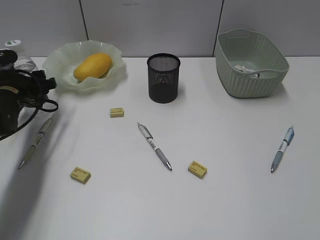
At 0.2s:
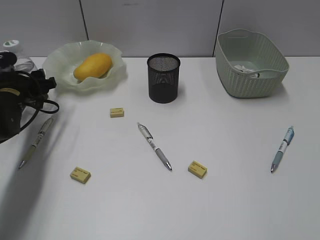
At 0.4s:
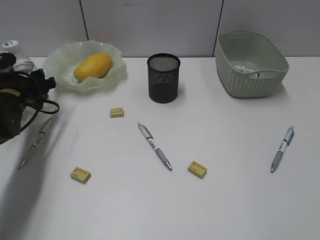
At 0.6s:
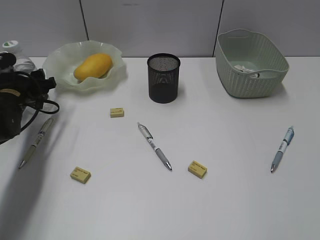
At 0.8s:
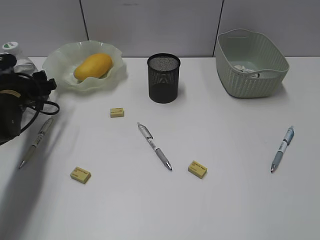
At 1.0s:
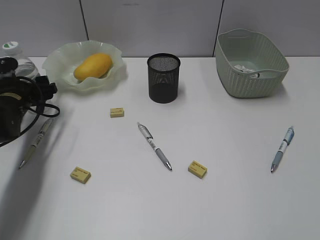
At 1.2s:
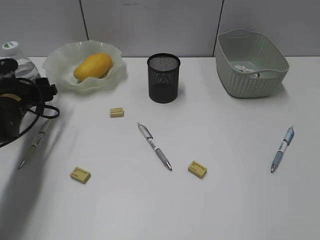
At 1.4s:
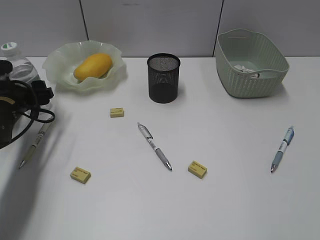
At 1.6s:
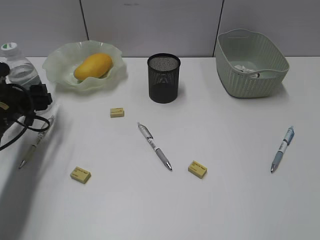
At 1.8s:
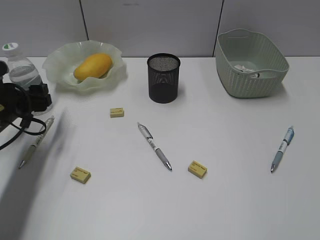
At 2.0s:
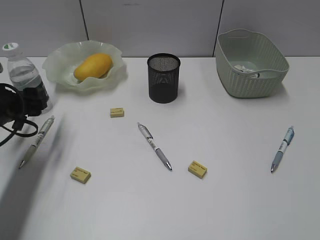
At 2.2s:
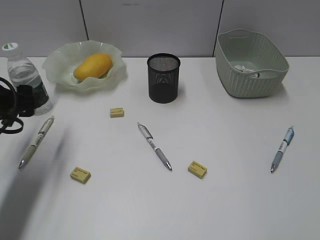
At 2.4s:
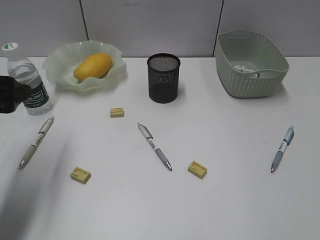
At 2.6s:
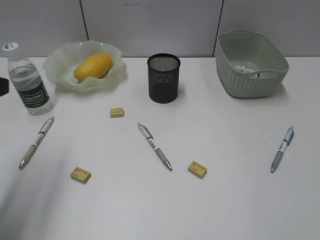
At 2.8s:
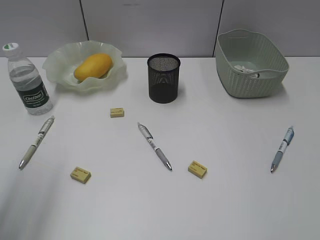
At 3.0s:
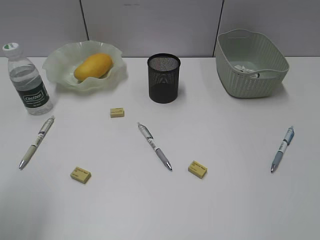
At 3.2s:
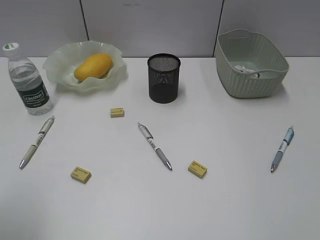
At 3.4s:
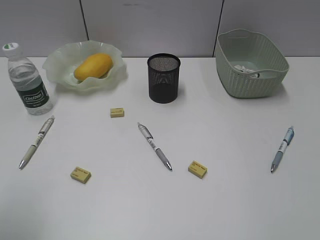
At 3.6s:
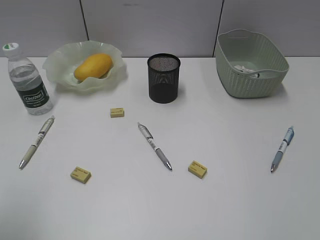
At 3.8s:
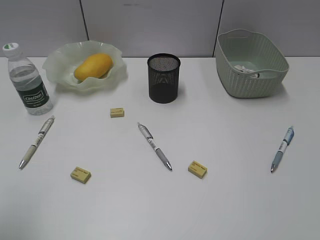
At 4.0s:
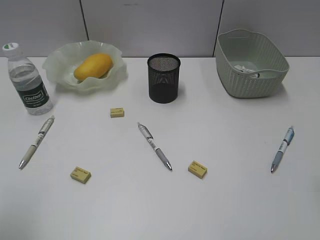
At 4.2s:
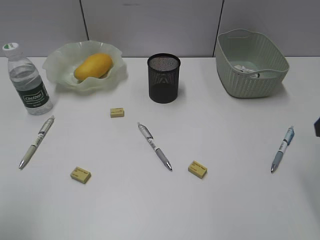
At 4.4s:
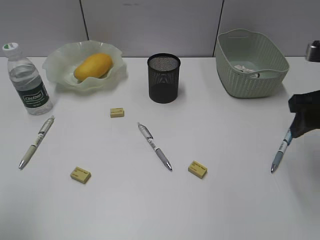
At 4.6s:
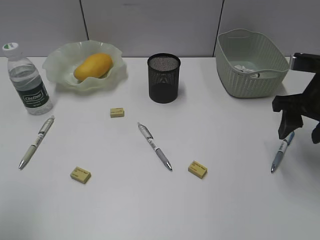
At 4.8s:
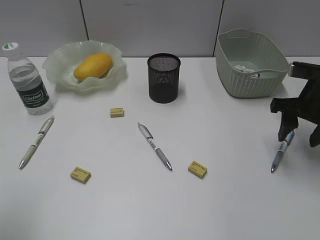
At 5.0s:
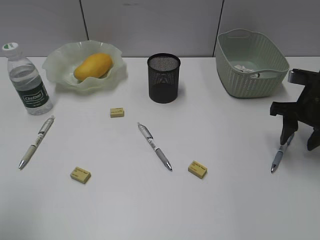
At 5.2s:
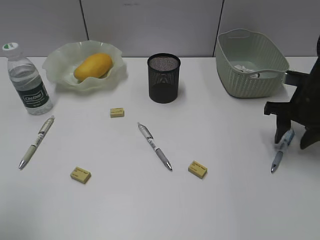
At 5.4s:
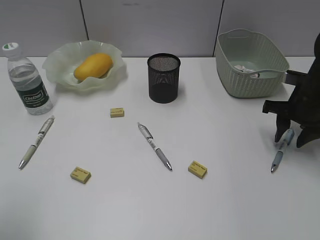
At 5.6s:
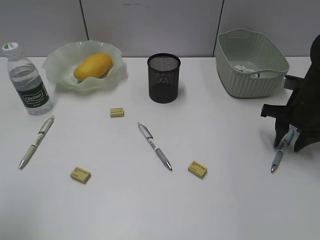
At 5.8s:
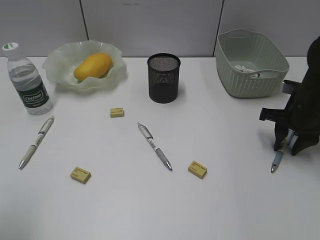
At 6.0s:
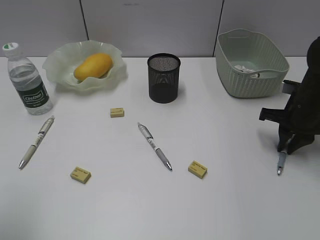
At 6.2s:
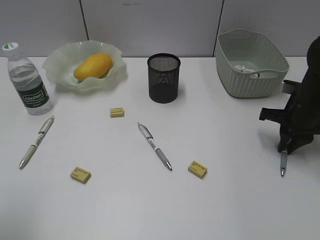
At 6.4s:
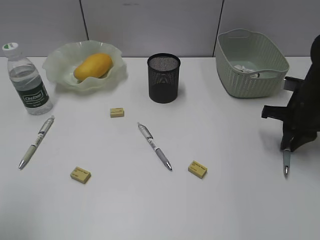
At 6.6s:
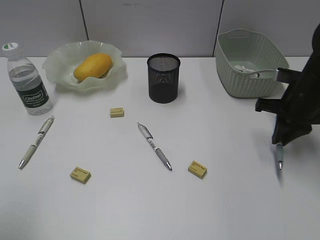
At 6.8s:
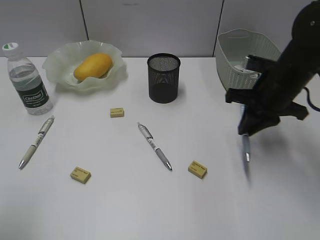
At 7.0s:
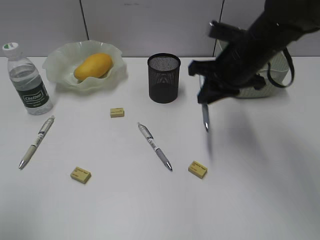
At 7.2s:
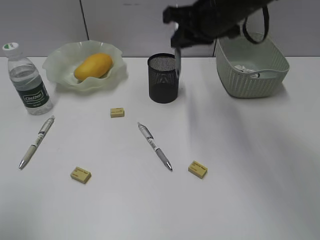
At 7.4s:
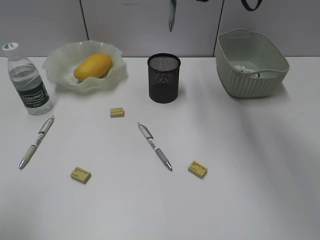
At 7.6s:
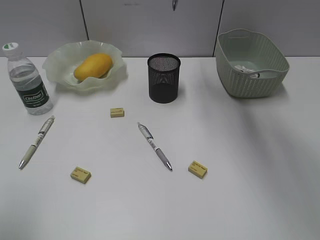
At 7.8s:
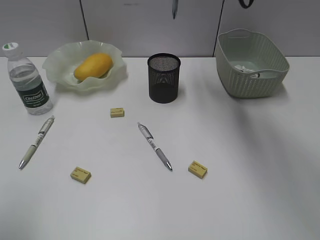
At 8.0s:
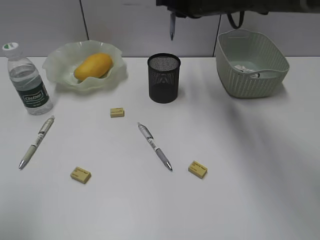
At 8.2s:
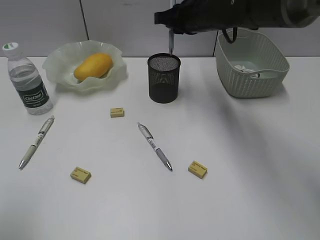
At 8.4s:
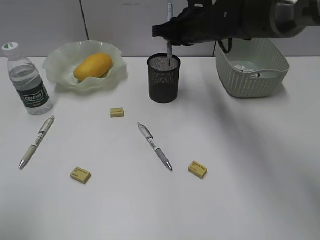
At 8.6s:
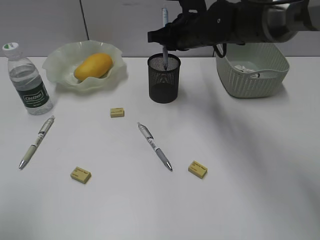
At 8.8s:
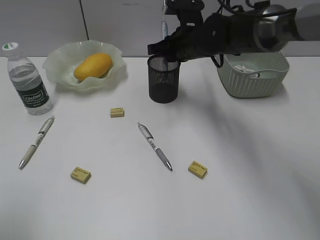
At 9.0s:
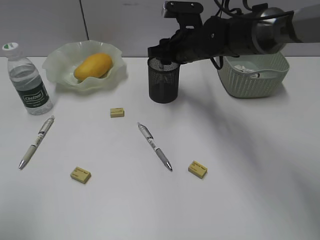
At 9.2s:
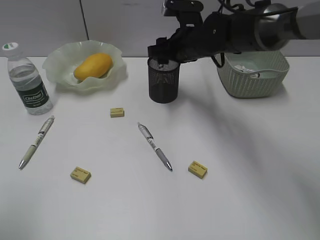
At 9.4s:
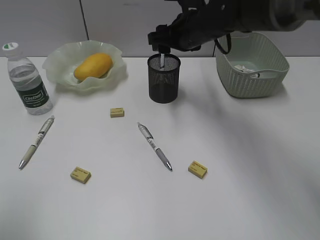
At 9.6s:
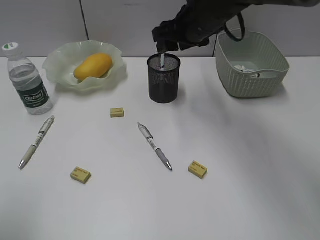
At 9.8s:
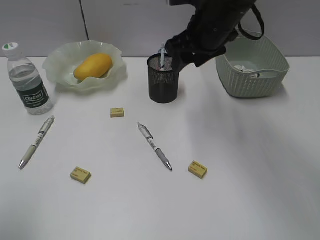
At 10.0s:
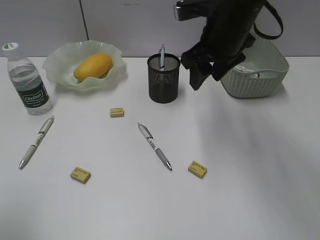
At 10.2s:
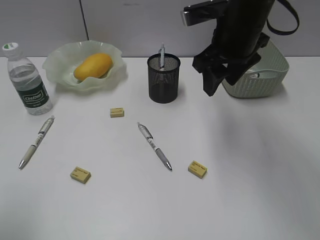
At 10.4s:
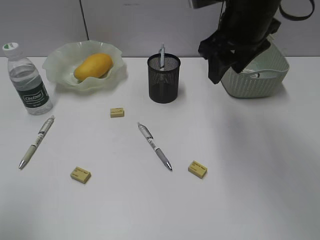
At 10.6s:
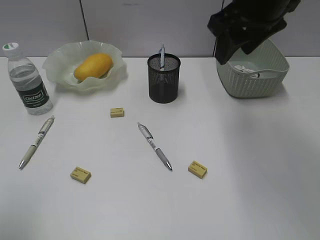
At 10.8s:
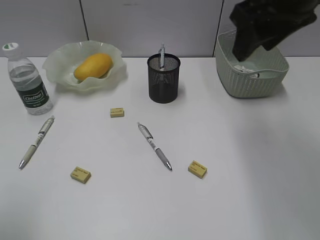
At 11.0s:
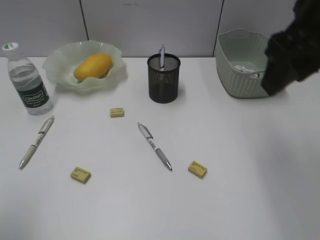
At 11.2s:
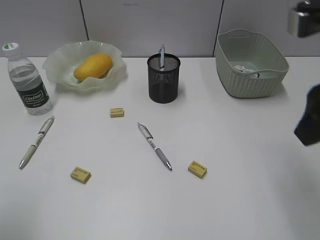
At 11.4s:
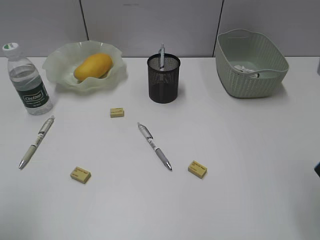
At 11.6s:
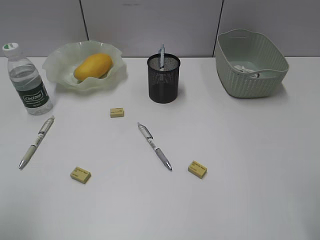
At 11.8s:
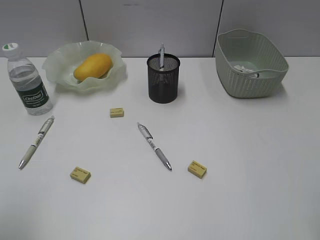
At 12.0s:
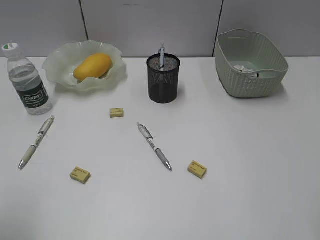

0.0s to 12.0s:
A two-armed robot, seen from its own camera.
Step, 0.0s to 2.2s: Stand the bottle with left gripper.
Step, 2.4s to 6.0s: Grasp the blue pen with right gripper.
Step, 6.2s to 9.4s: Place the blue pen in pen holder with right gripper.
0.0s to 1.6s: The grippers stay close to where they were, moving slightly.
1.6s to 3.0s: The left gripper moves backward and upward, approximately 30 cm.
3.0s to 4.4s: The right gripper travels forward by approximately 20 cm.
4.4s to 6.0s: The right gripper moves downward and forward, about 15 cm, and closes up.
6.0s to 7.6s: The right gripper travels upward and to the left by about 30 cm.
7.6s to 9.0s: The right gripper heads downward, covering roughly 15 cm, and opens.
9.0s to 10.4s: The right gripper heads upward, backward and to the right, covering roughly 15 cm.
10.4s to 12.0s: The right gripper is displaced backward and to the right by roughly 30 cm.

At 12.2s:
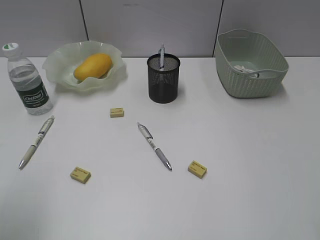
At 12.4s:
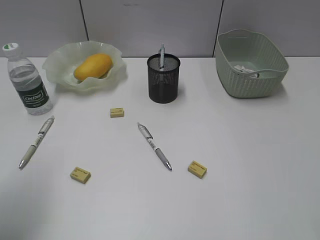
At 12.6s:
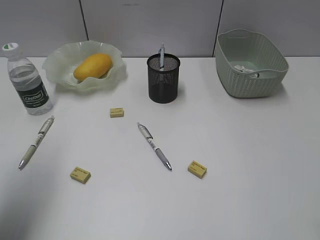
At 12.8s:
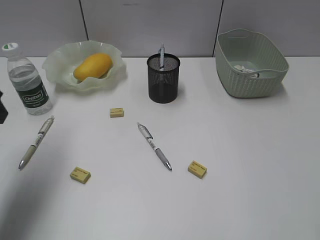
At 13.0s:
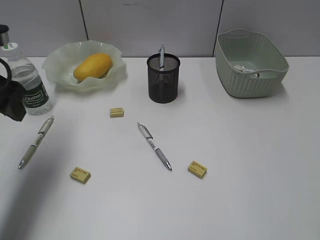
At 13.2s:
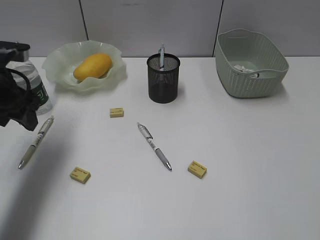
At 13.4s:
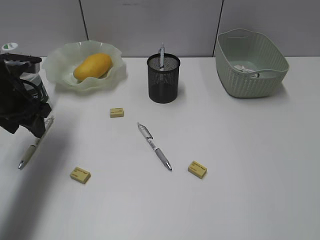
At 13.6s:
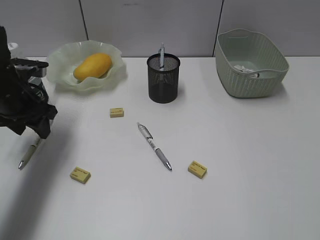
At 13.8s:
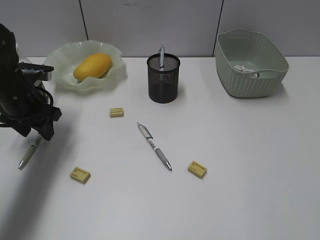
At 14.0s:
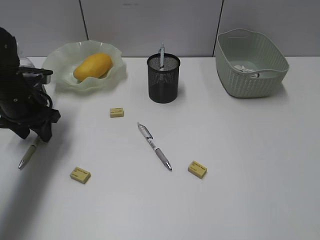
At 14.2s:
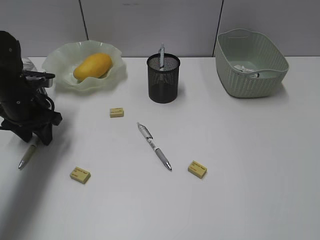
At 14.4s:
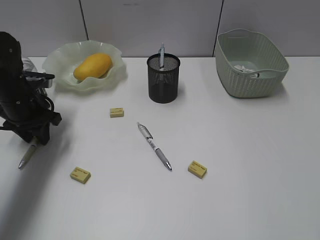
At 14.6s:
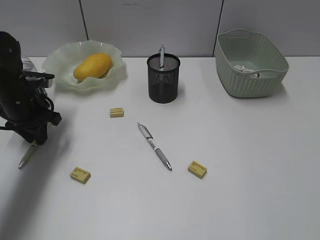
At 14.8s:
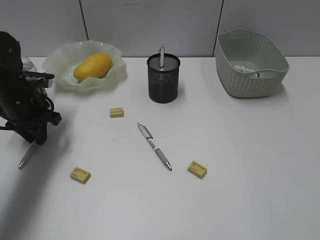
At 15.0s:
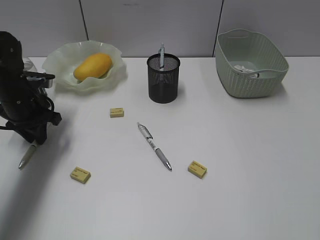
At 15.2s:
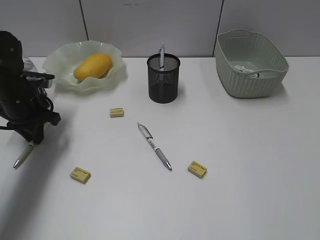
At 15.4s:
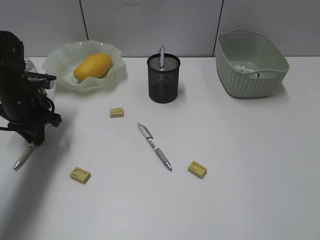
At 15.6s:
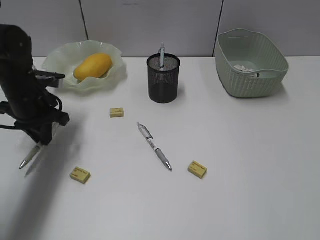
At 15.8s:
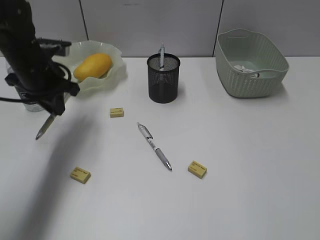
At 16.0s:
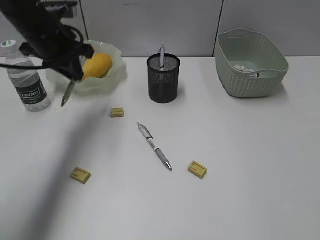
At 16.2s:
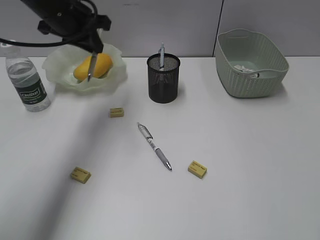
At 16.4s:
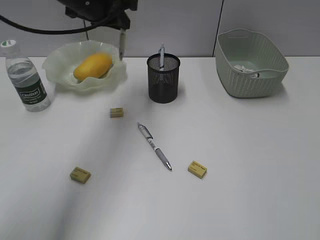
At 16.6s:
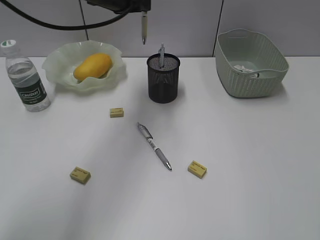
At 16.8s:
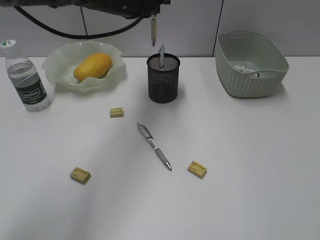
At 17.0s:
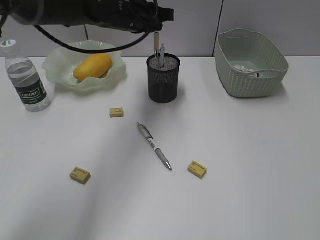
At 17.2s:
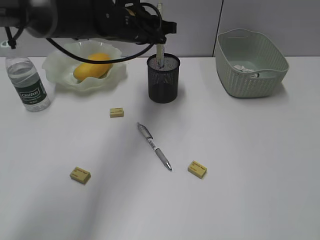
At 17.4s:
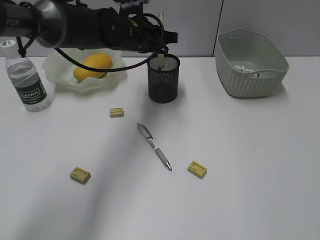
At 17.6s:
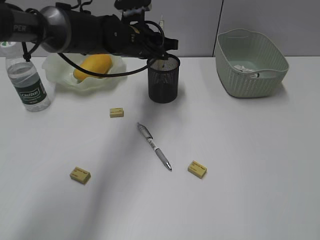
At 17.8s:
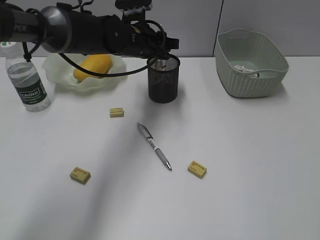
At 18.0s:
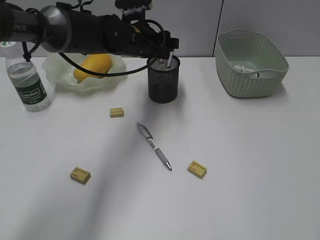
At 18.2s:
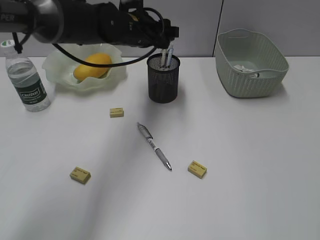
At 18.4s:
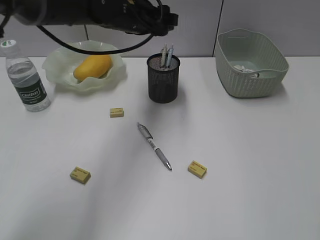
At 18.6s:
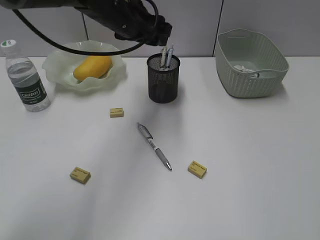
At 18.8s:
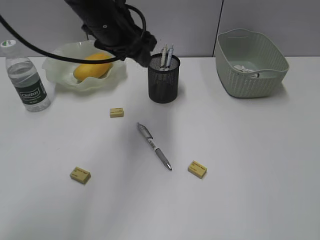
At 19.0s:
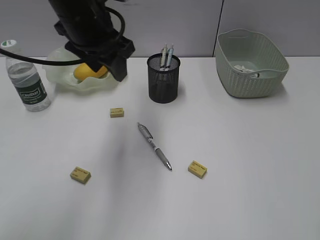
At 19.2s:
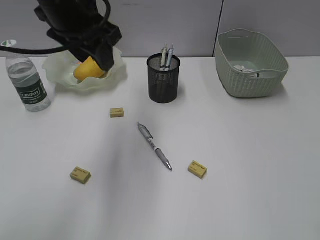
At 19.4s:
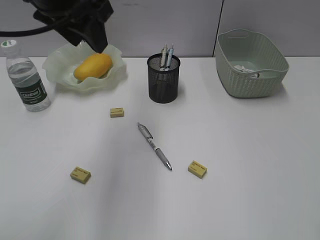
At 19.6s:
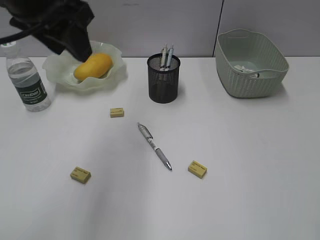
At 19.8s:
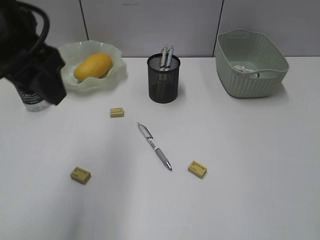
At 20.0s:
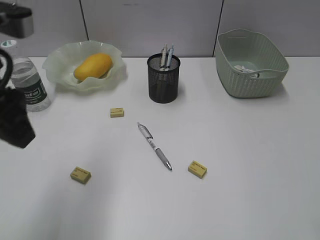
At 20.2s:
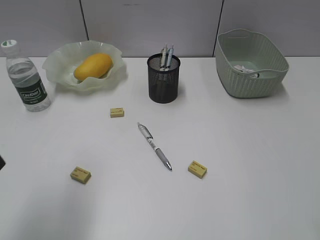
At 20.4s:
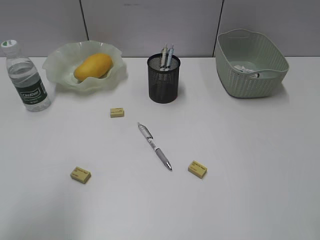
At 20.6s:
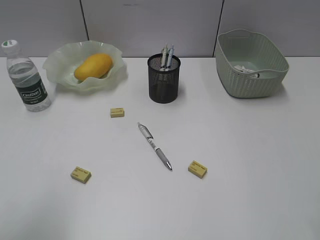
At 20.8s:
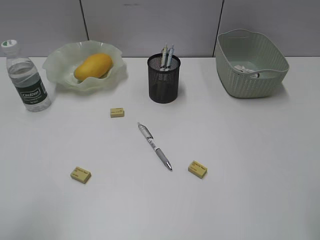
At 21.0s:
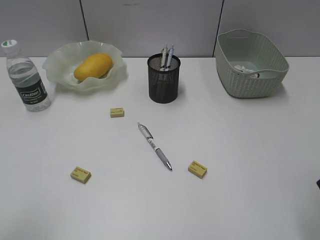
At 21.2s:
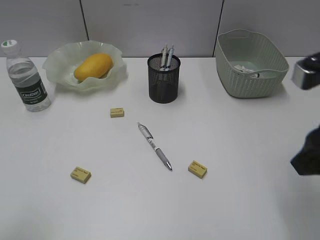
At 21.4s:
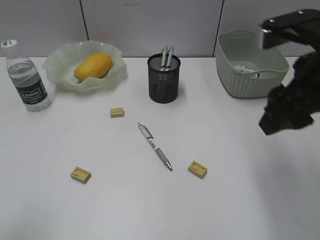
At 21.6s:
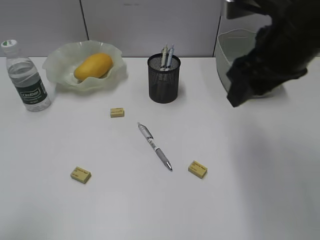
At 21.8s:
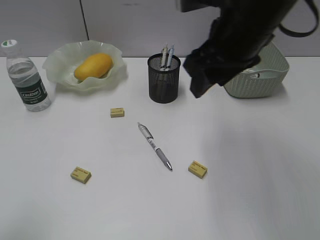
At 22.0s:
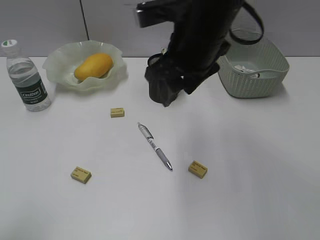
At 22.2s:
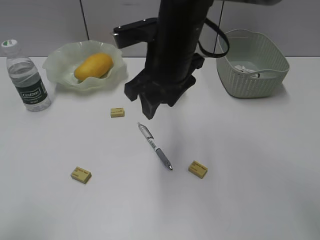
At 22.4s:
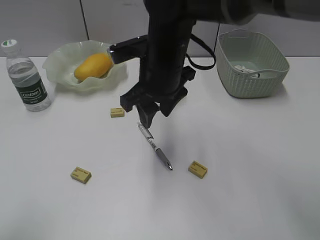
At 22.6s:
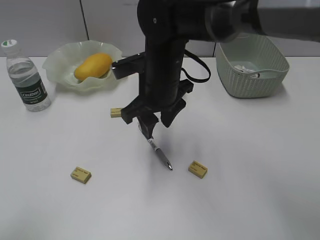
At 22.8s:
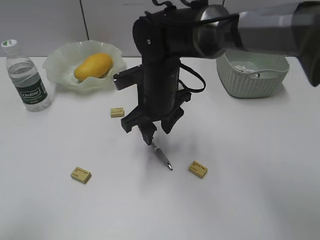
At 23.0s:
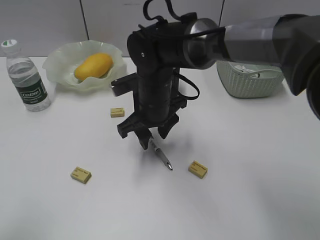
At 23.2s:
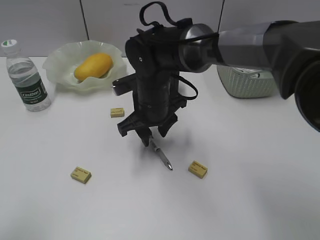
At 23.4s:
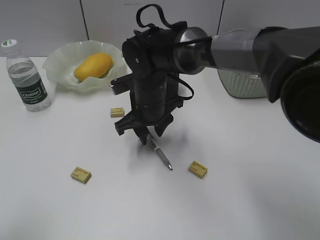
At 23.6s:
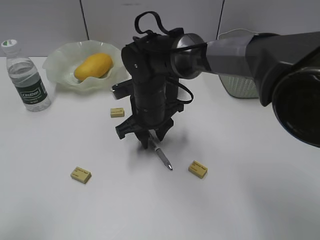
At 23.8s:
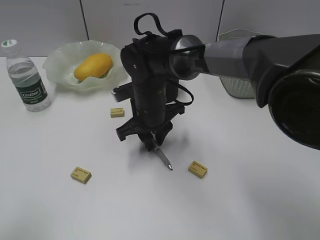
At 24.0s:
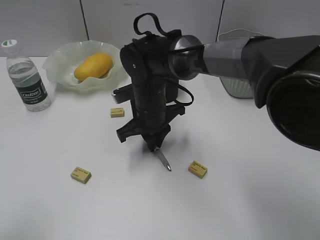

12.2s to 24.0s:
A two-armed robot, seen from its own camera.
Step, 12.2s to 15.2s: Grasp the yellow pen with left gripper.
Step, 15.4s to 18.0s: Place the yellow pen in pen holder with left gripper.
12.2s to 13.6s: The left gripper travels forward and downward by some 30 cm.
13.6s to 15.2s: The left gripper changes place by approximately 5 cm, and closes its fingers.
15.2s to 16.6s: The left gripper moves upward and to the right, some 25 cm.
16.6s to 18.2s: The left gripper moves downward, roughly 10 cm, and opens.
18.2s to 19.6s: The left gripper heads backward, upward and to the left, covering roughly 25 cm.
19.6s to 21.0s: The left gripper travels backward and to the left by approximately 25 cm. Meanwhile the right gripper moves about 5 cm.
21.0s to 22.6s: The right gripper heads to the left, forward and downward, covering about 35 cm.
22.6s to 24.0s: The right gripper travels downward by roughly 10 cm, and closes its fingers.
